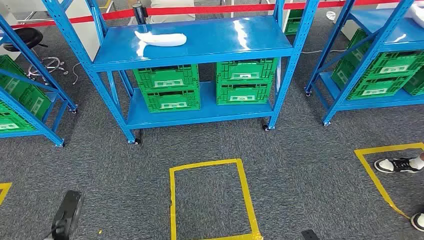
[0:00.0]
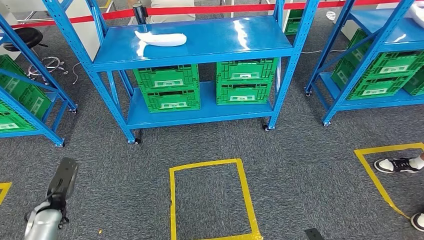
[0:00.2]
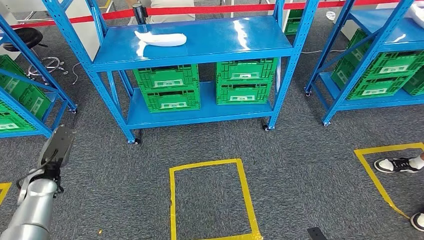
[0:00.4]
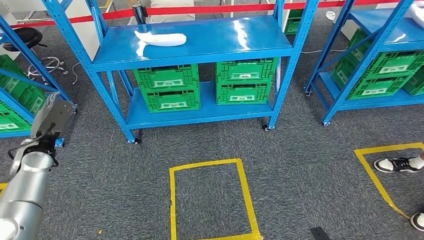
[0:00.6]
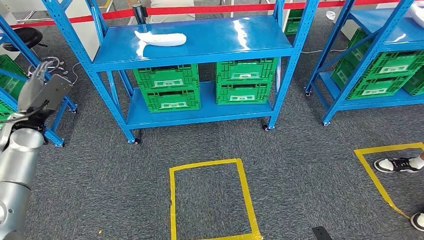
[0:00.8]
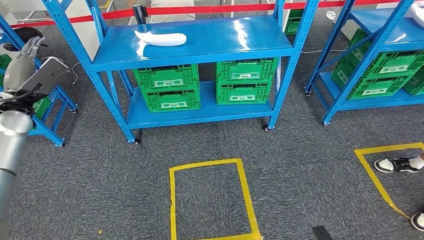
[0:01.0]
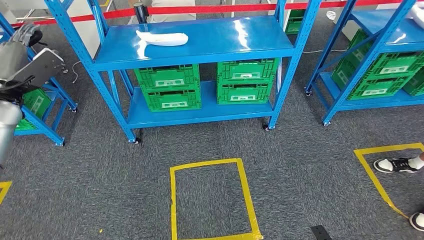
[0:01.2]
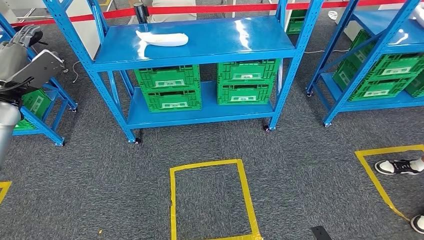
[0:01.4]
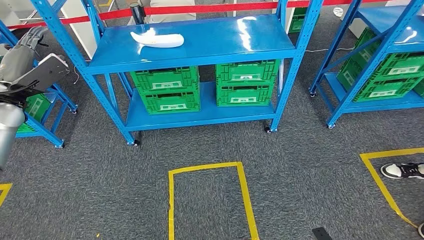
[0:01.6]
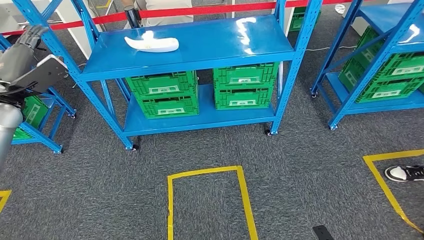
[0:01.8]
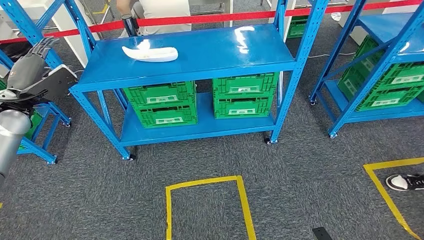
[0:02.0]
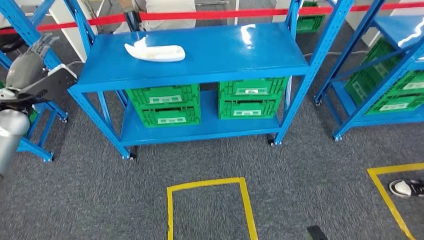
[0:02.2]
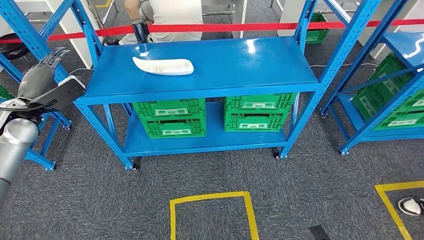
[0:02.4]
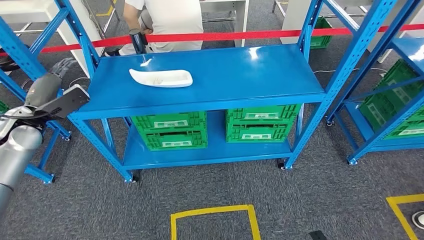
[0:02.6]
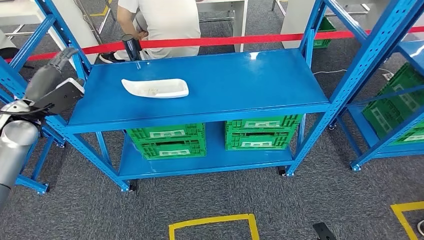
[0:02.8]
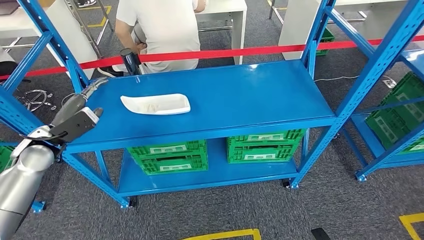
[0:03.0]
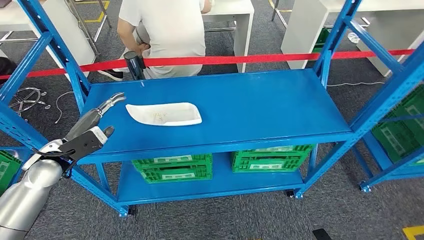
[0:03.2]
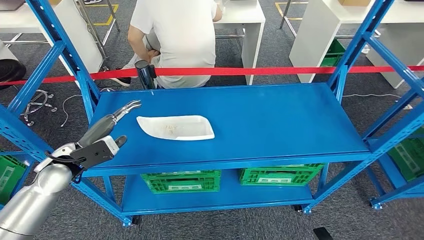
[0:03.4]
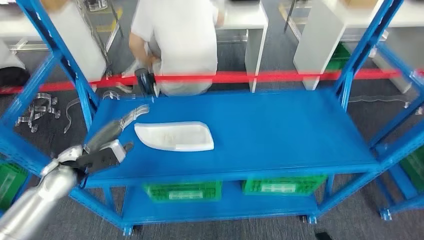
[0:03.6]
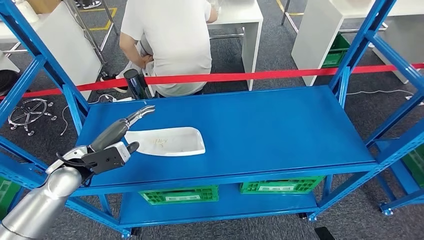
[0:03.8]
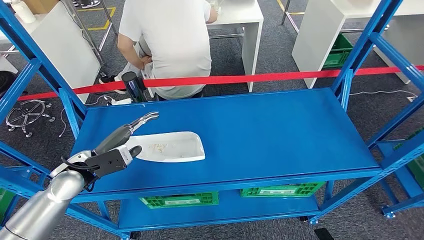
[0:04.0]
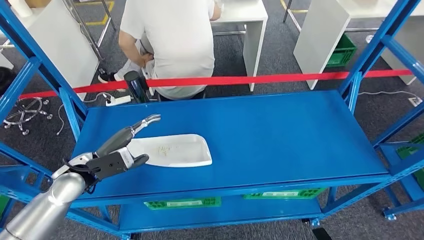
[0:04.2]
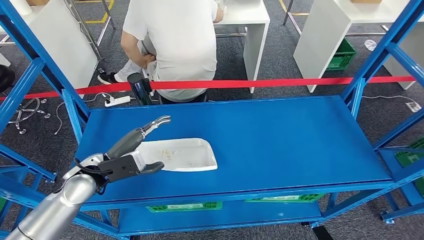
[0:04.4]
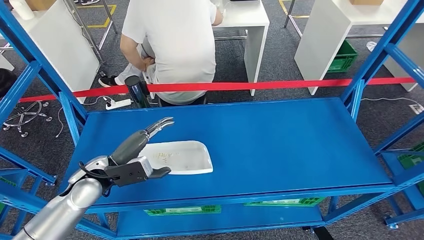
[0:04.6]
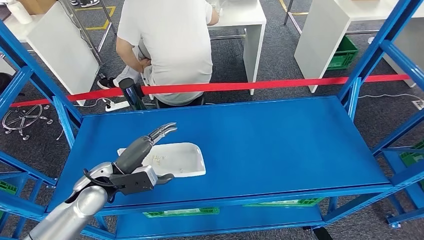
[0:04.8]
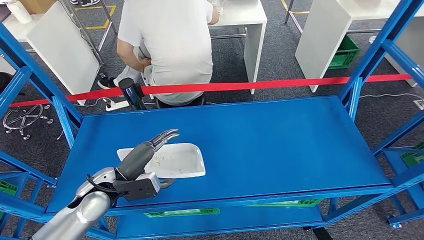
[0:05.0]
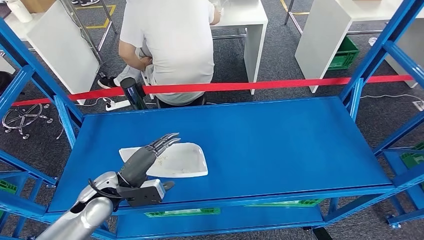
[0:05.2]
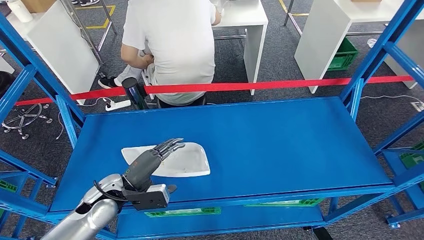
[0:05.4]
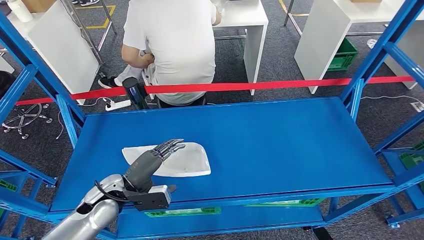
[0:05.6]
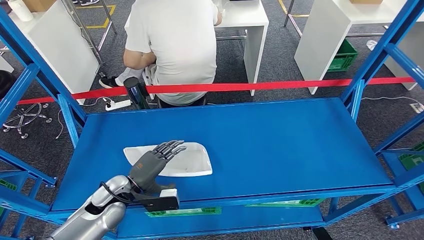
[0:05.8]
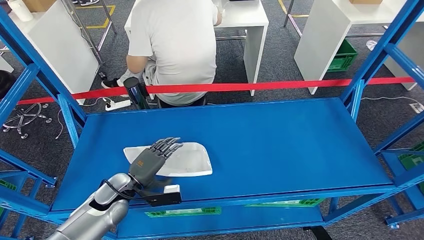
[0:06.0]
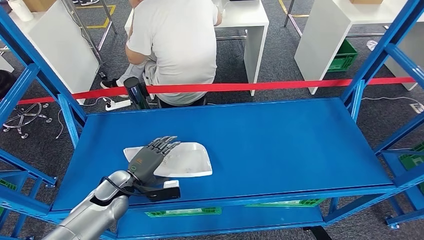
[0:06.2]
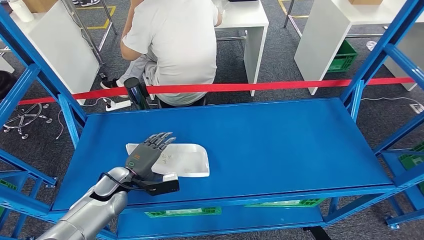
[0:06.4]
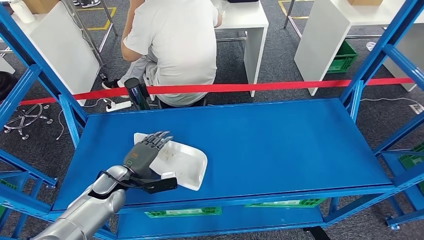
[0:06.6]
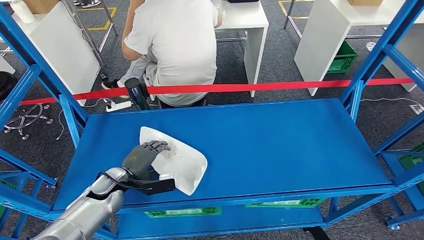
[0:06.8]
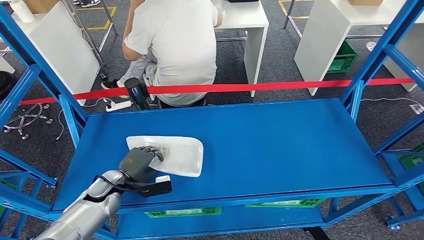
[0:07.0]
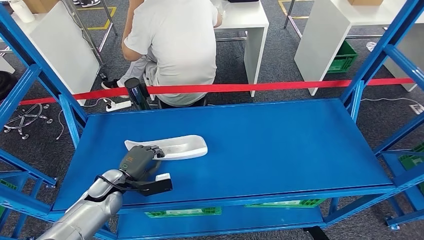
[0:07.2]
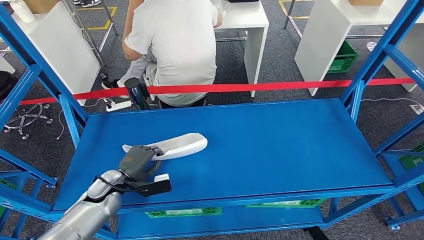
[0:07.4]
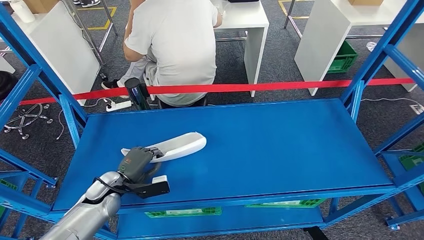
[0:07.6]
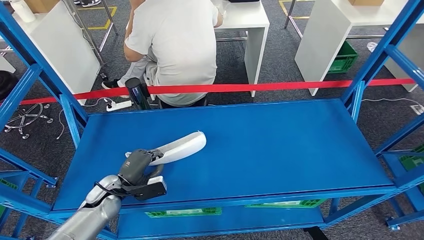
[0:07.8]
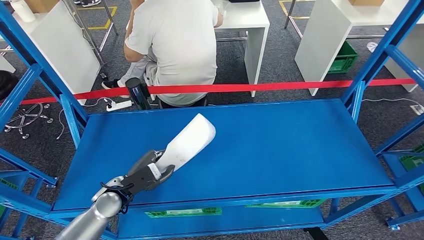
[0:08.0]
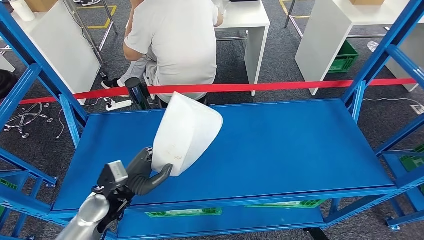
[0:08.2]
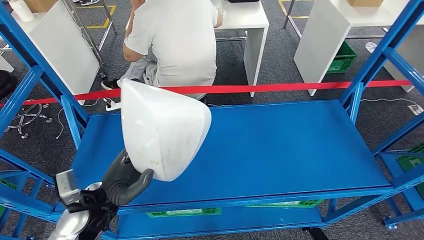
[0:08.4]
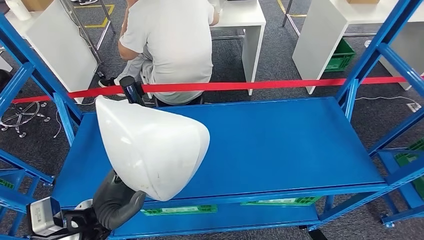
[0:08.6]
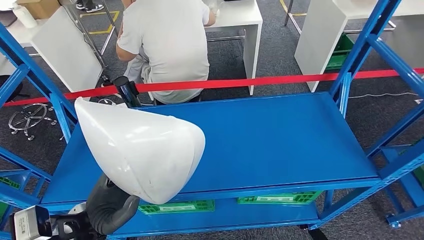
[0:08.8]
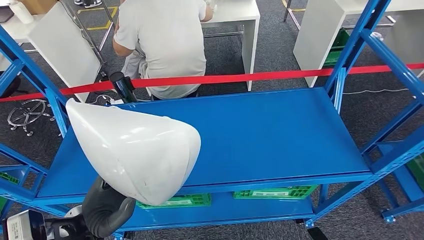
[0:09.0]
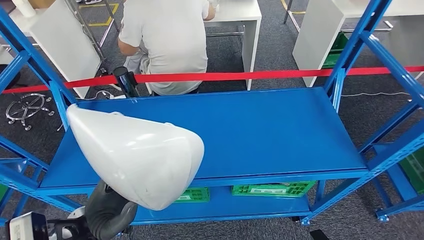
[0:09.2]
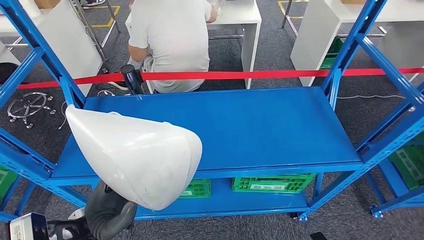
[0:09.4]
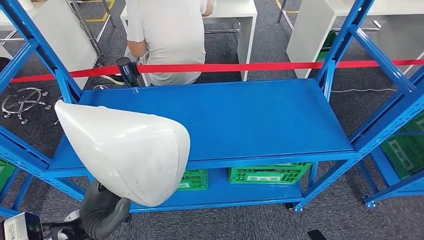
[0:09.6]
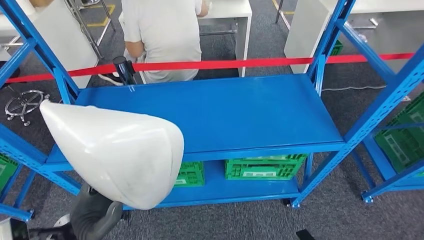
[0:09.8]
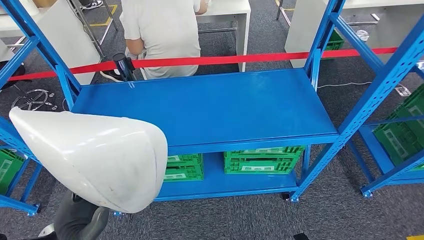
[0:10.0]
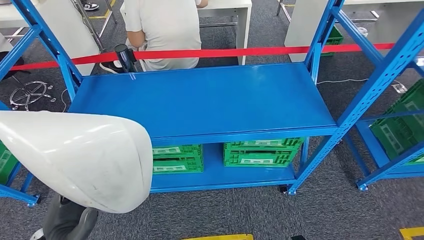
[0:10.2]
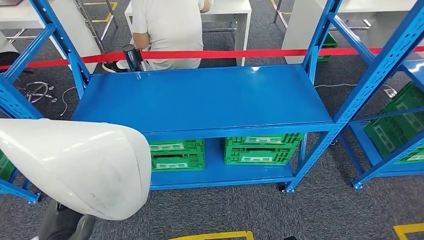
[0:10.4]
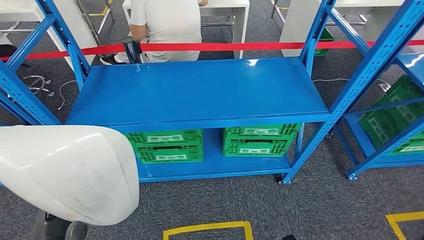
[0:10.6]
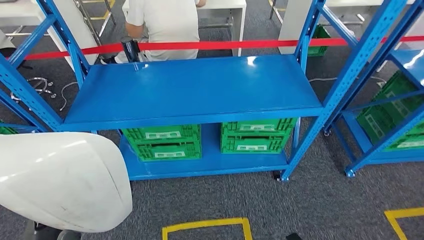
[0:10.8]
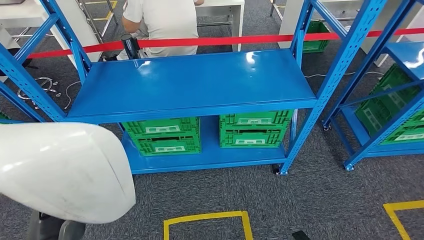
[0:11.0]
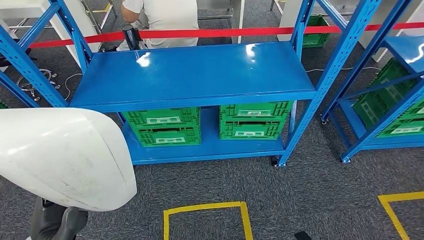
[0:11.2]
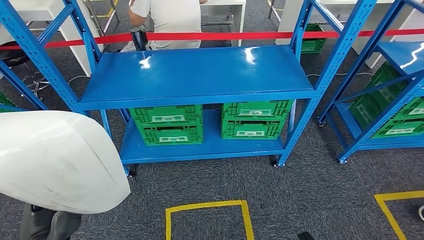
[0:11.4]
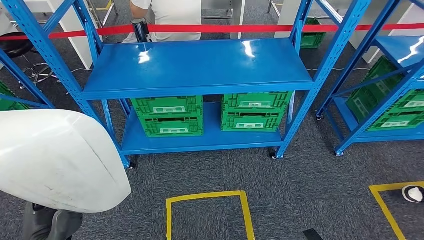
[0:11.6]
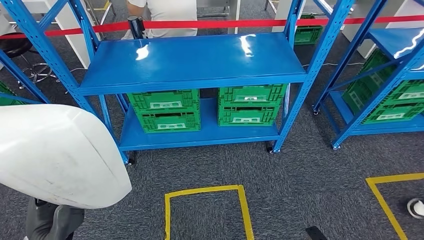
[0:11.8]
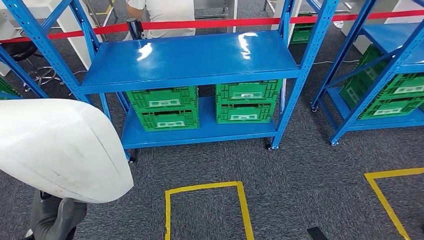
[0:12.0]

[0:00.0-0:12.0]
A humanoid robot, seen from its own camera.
Step, 0:00.0 to 0:10.0: Pick up the small component from the shelf.
0:06.0 to 0:07.6: There are only small adjustments of the hands.

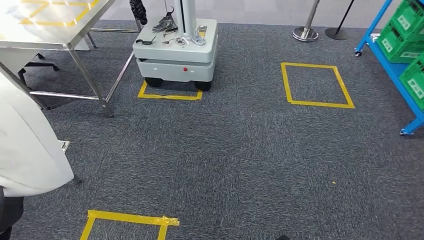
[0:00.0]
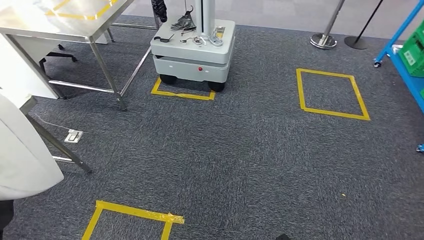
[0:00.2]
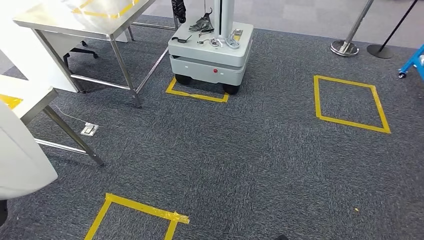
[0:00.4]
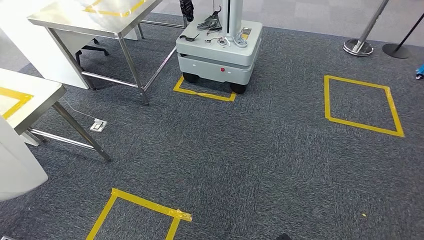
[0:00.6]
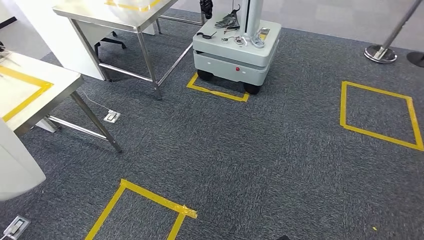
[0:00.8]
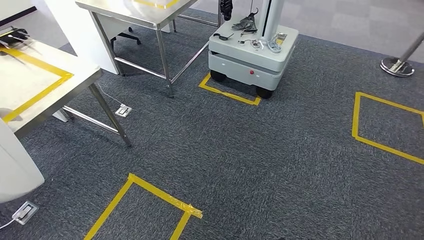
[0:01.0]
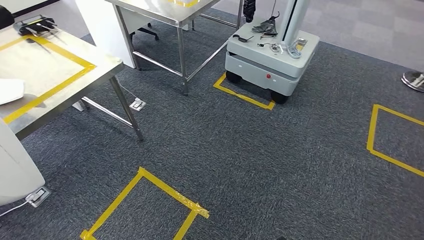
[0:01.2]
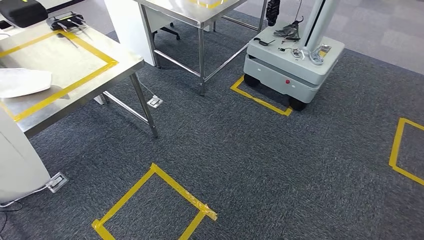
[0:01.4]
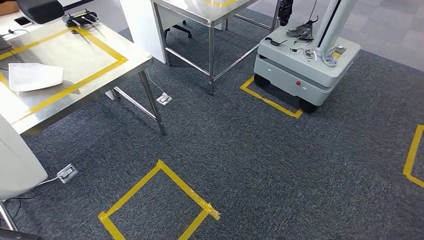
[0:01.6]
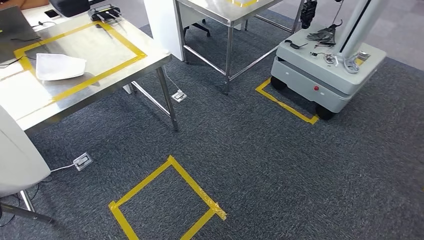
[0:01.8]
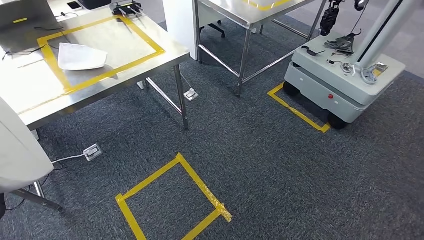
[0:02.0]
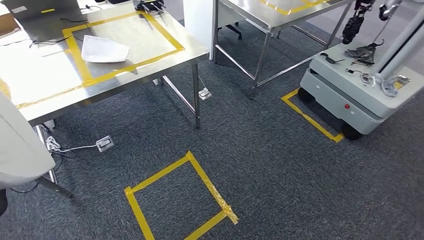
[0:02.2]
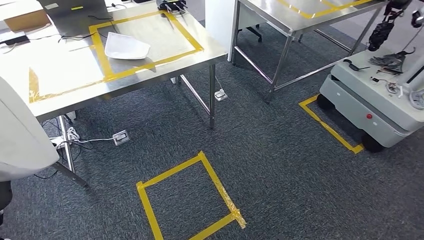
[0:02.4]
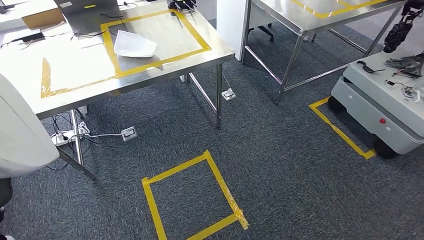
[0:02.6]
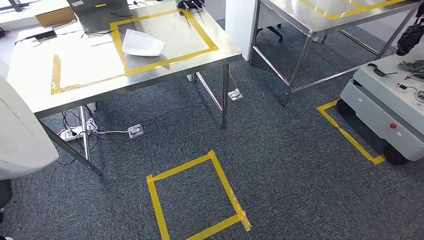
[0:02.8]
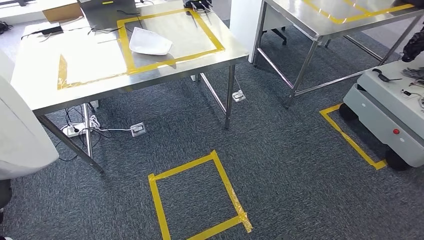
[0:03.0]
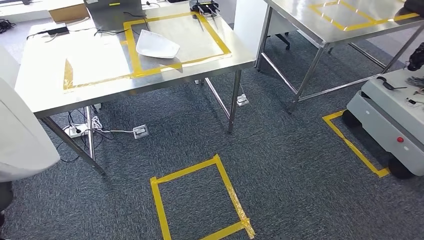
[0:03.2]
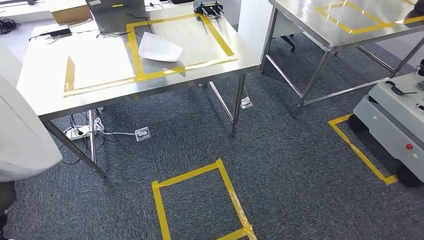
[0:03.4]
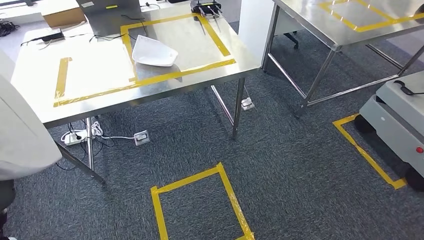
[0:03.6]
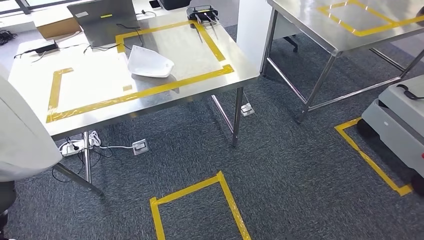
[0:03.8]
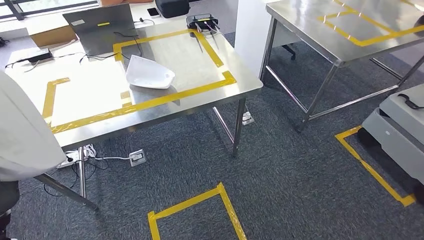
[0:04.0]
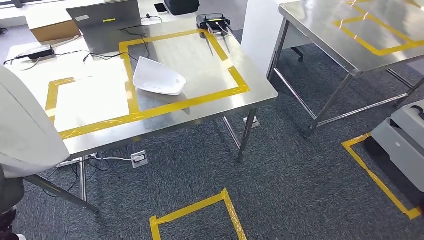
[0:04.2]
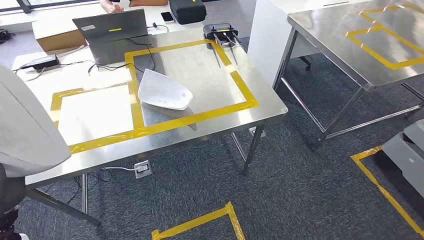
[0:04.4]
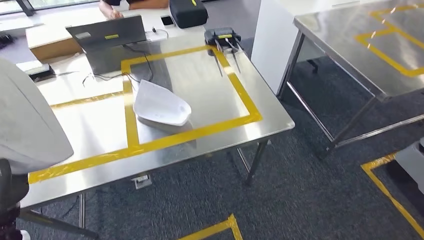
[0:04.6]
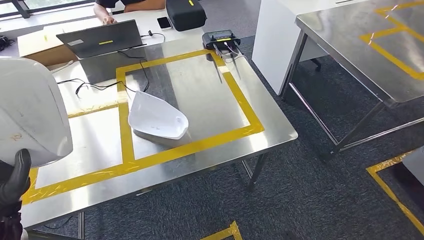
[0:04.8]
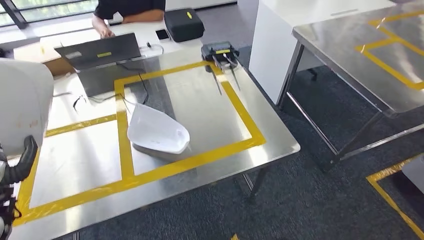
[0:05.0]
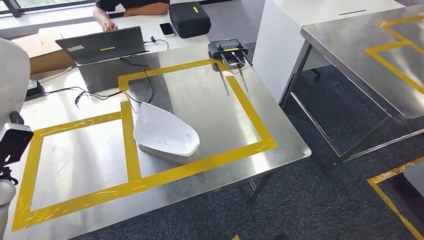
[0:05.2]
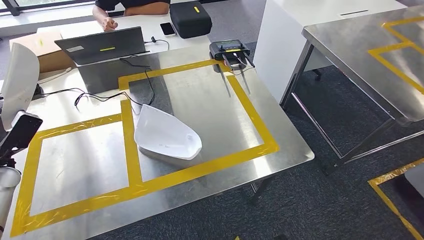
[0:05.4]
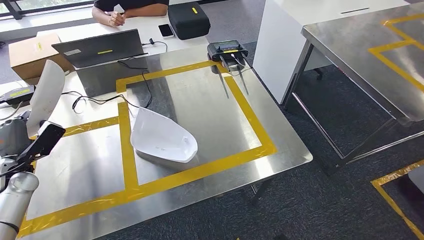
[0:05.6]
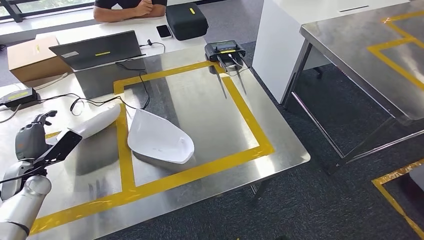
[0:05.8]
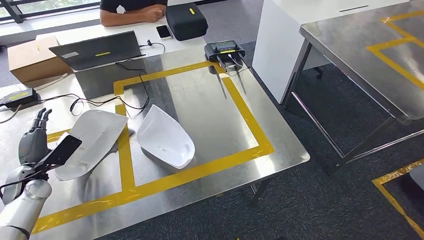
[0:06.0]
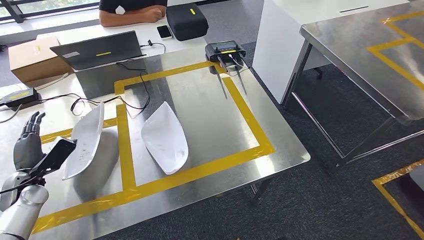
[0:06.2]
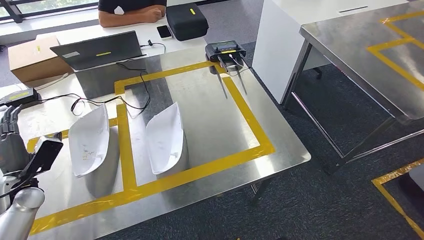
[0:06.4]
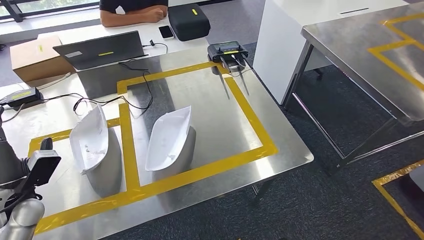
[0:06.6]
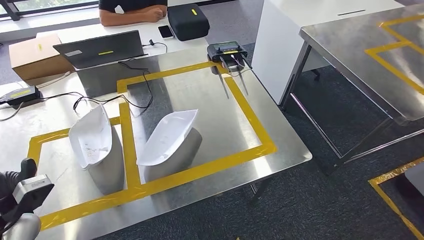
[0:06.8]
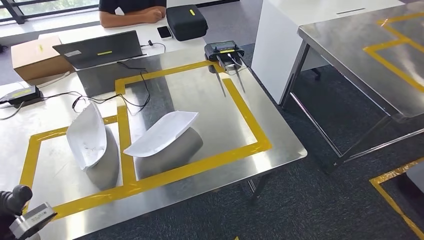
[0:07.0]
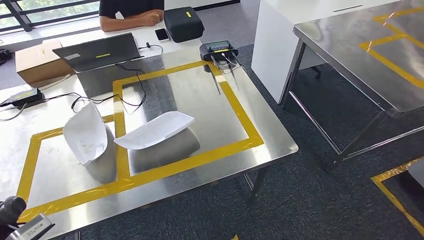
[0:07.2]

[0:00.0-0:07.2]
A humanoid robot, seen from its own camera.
Step, 0:00.0 to 0:03.2: Bring the small component to the front of the workbench.
